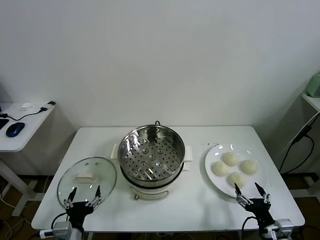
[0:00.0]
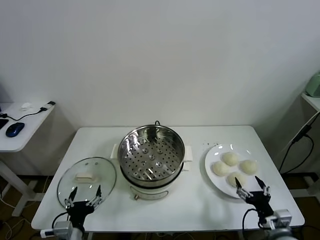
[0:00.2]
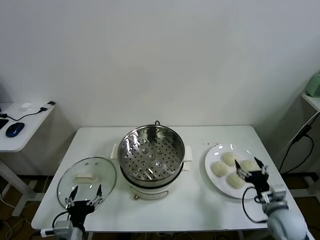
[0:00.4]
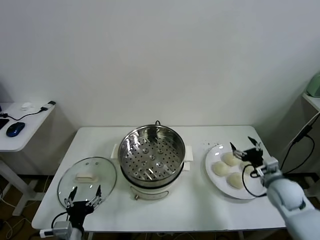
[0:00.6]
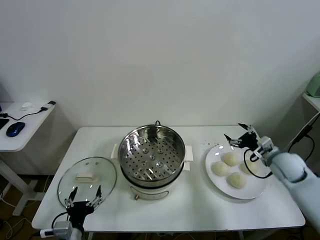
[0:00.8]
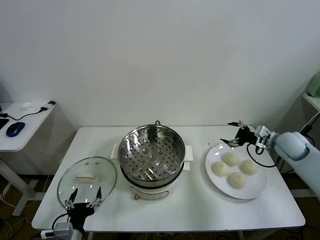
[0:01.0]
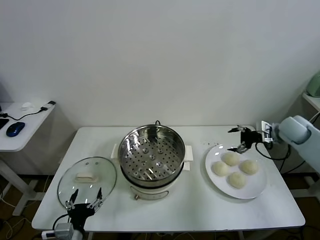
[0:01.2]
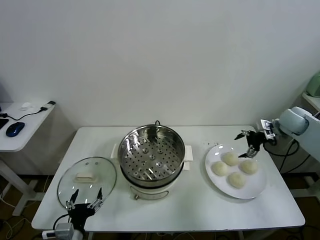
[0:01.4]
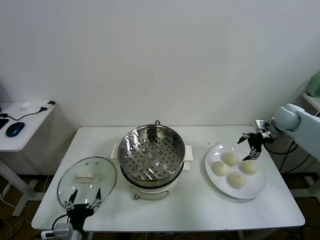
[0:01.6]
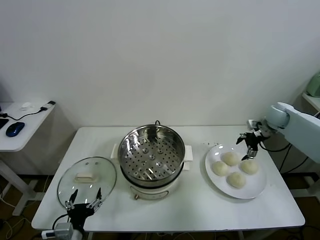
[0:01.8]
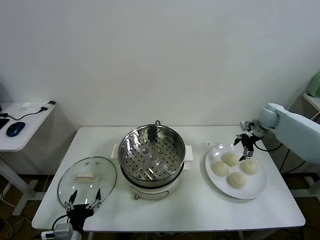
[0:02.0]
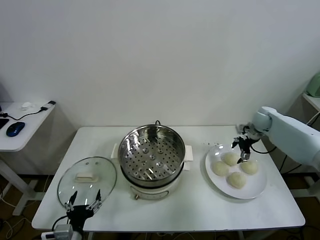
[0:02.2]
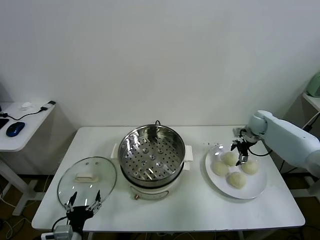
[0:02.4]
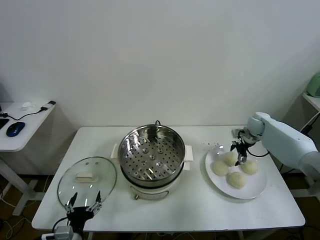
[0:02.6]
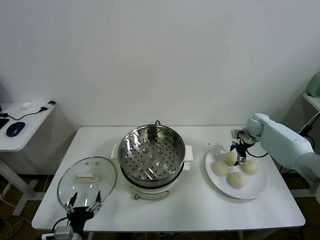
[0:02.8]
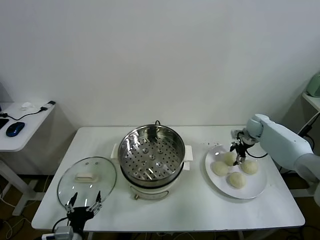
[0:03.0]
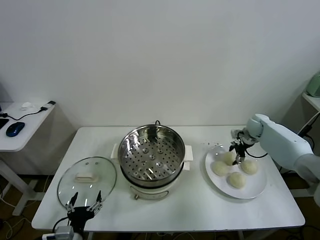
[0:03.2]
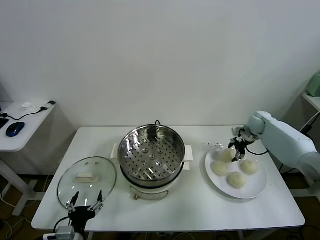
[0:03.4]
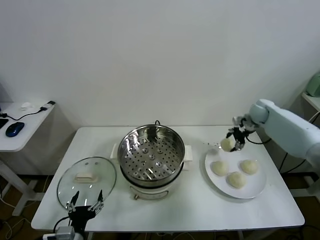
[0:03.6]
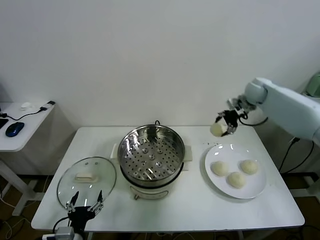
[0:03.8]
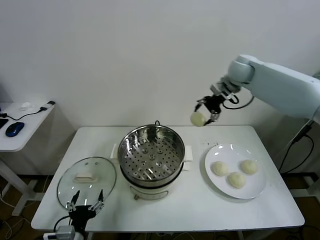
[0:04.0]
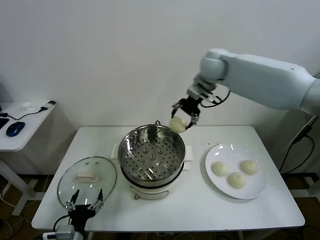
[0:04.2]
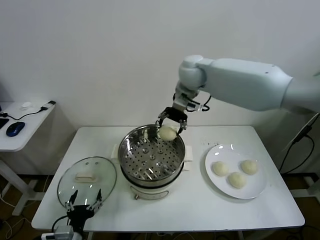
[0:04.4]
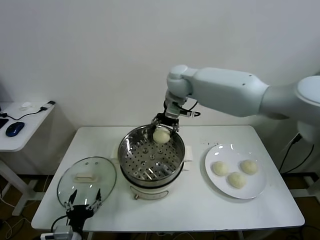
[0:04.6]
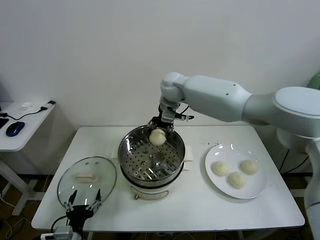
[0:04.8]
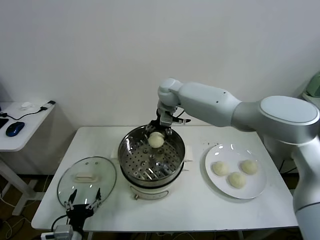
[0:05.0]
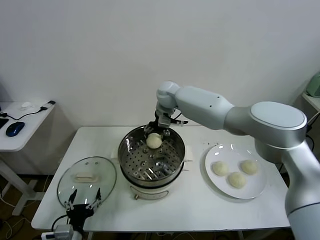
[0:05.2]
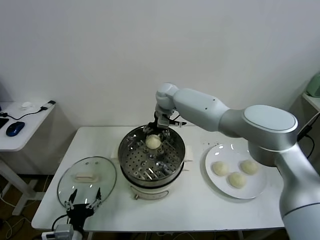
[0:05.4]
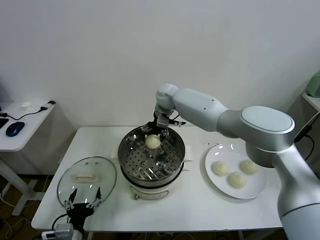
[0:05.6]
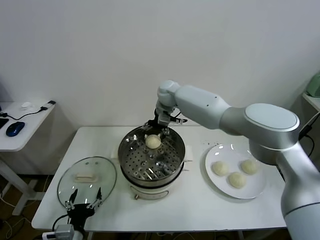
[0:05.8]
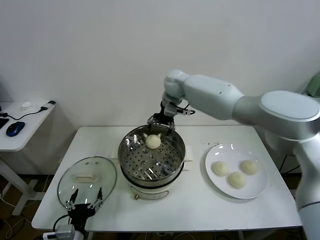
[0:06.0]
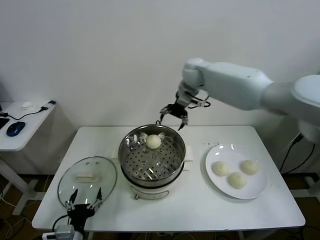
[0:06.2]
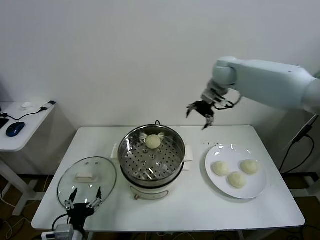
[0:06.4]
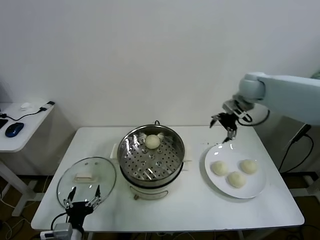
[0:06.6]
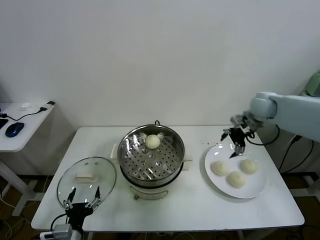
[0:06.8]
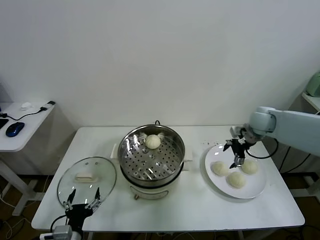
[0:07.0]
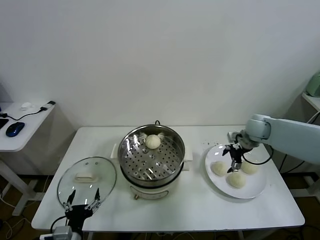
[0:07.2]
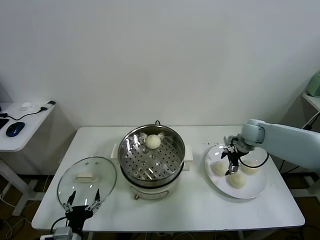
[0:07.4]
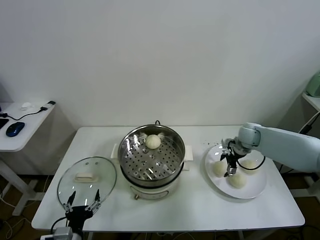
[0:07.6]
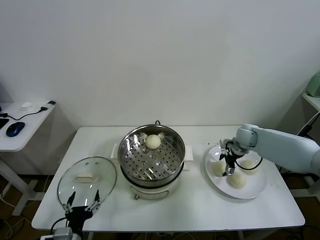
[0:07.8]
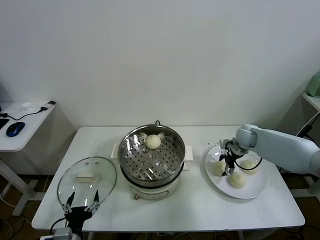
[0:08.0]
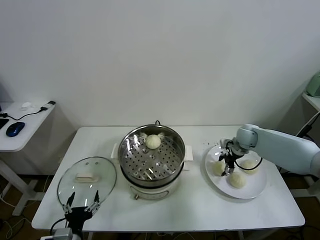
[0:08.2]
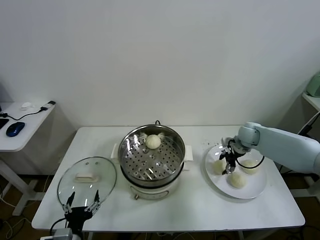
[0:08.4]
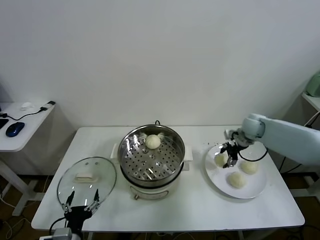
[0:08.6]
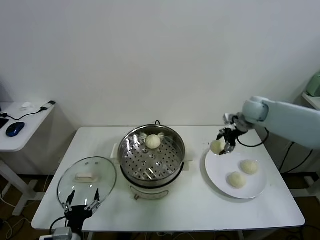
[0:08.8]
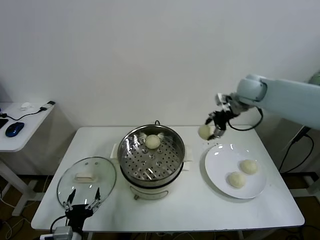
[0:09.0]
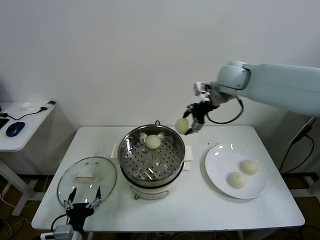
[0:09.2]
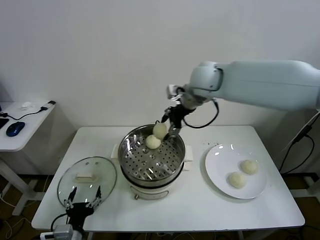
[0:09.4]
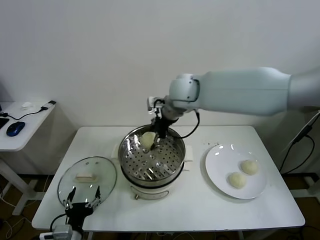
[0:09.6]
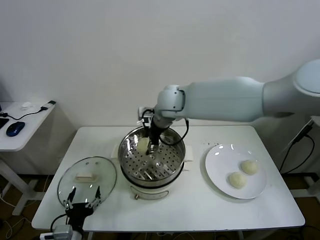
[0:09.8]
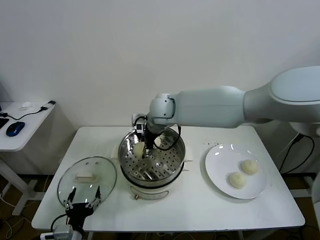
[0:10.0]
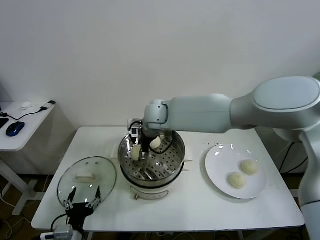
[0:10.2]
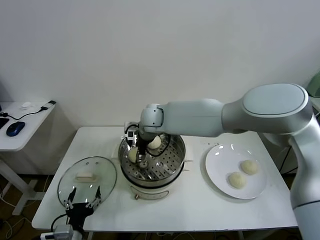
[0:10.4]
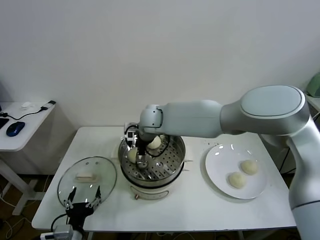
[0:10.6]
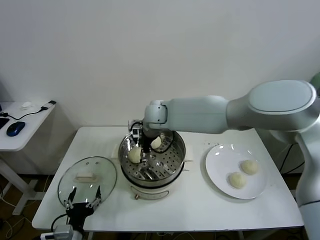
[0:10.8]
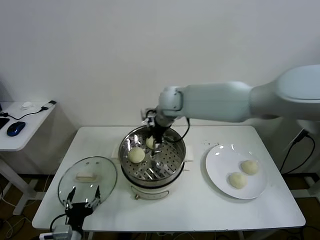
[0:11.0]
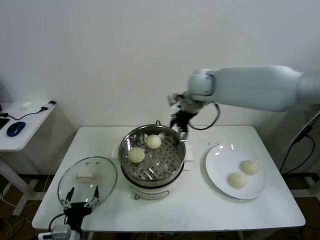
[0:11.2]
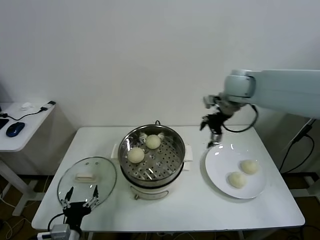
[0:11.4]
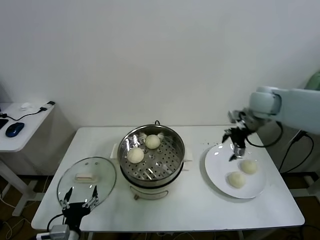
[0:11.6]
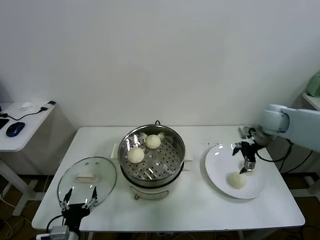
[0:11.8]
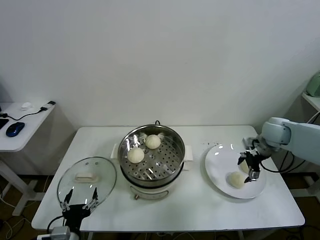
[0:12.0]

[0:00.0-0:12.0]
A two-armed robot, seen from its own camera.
Task of the whole recording: take steamed baozi put them in steamer.
Step, 0:00.0 to 0:03.2: Grasp the baozi in the plate with right gripper.
Step, 0:03.4 to 0:05.6: Place the baozi on the steamer with right gripper.
Step, 0:05.8 to 0:08.0: Grasp the baozi in the plate with right gripper.
Step, 0:08.2 to 0:10.6: Place the baozi on the steamer with right gripper.
0:01.6 to 0:03.0: The right gripper travels downward by about 10 cm, and closes its fingers.
0:03.0 to 0:04.4: The right gripper heads to the left and upward, covering some 40 cm.
0:04.4 to 0:06.0: The right gripper is displaced forward by about 5 cm, travels downward and back again, some 10 cm each way, and opens up.
0:06.0 to 0:07.6: The right gripper shifts roughly 35 cm to the right and downward.
0:07.6 to 0:09.0: The right gripper moves upward, some 25 cm, and closes.
0:09.0 to 0:10.4: The right gripper shifts roughly 30 cm to the left, and opens its fingers.
0:10.4 to 0:12.0: The right gripper travels to the right by roughly 40 cm.

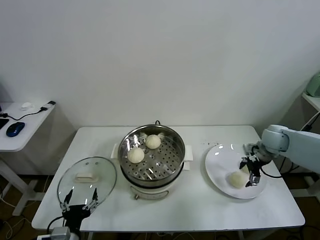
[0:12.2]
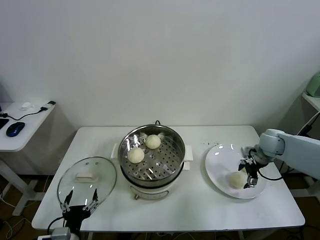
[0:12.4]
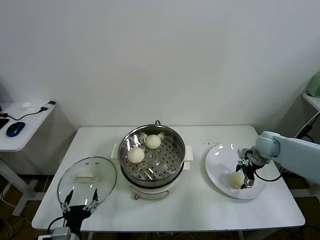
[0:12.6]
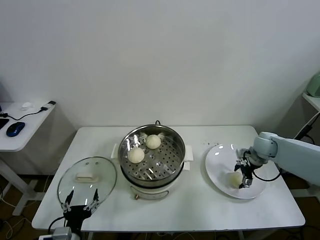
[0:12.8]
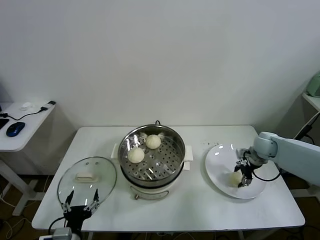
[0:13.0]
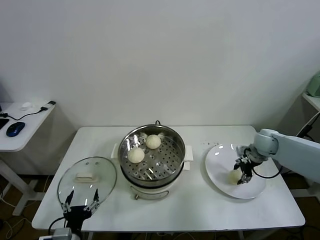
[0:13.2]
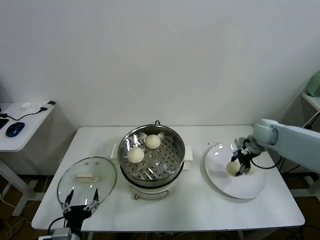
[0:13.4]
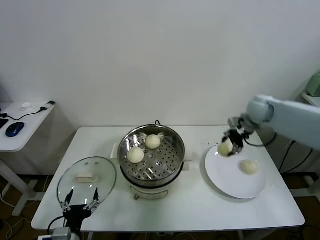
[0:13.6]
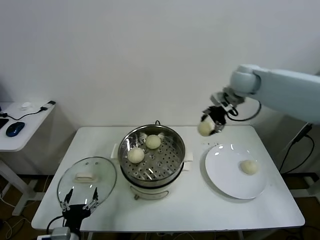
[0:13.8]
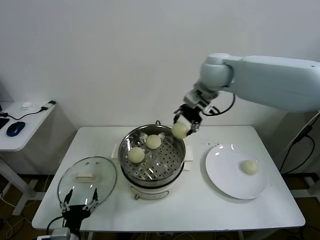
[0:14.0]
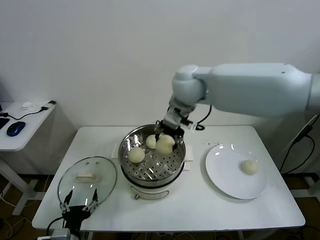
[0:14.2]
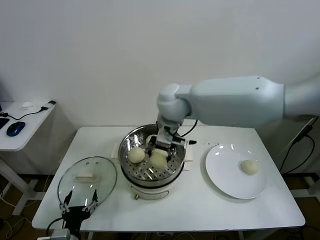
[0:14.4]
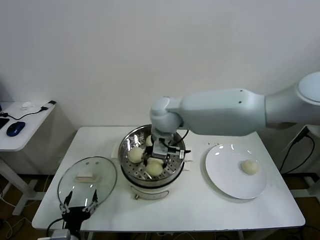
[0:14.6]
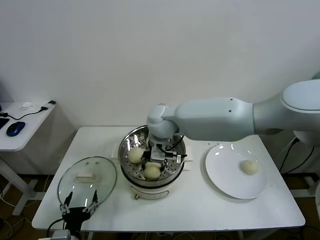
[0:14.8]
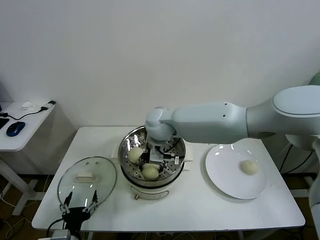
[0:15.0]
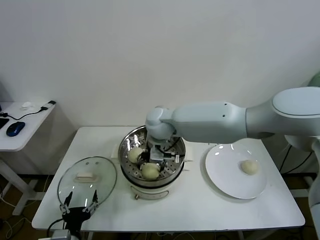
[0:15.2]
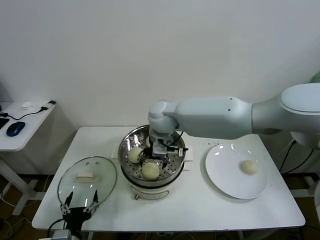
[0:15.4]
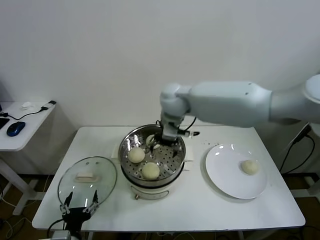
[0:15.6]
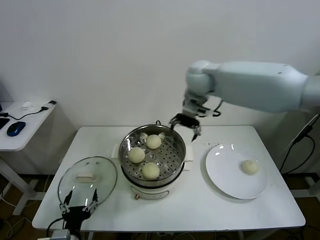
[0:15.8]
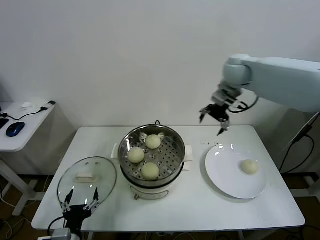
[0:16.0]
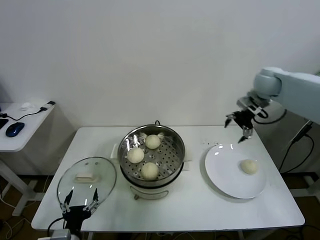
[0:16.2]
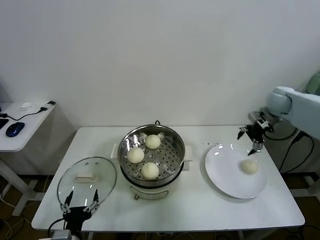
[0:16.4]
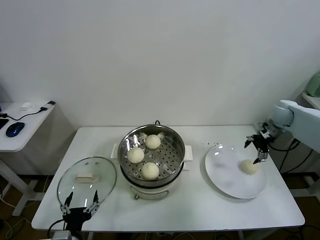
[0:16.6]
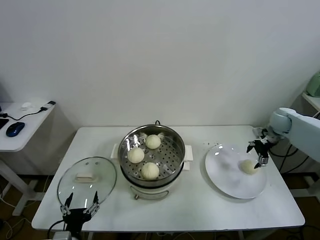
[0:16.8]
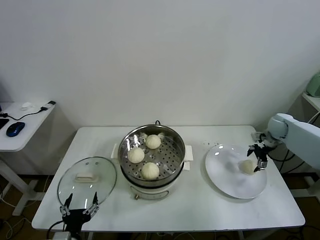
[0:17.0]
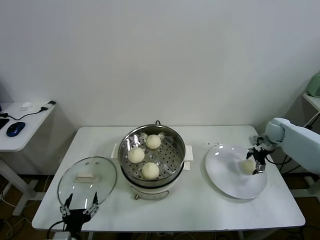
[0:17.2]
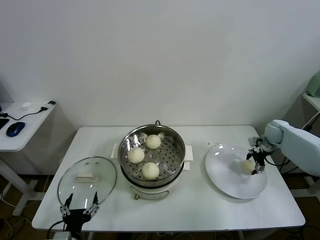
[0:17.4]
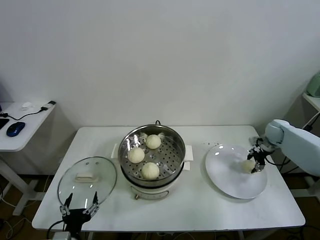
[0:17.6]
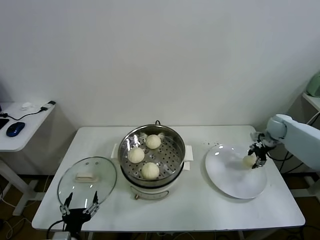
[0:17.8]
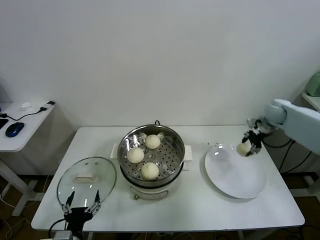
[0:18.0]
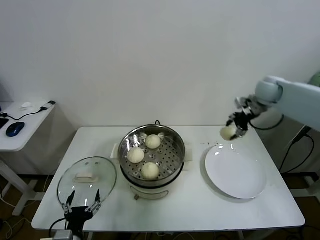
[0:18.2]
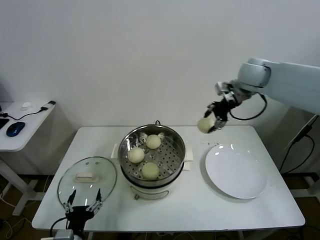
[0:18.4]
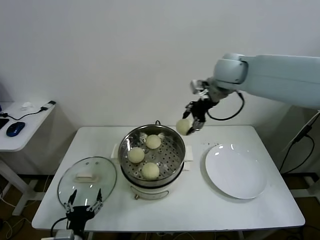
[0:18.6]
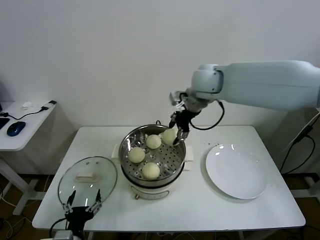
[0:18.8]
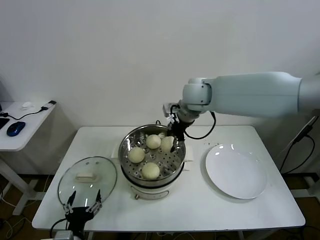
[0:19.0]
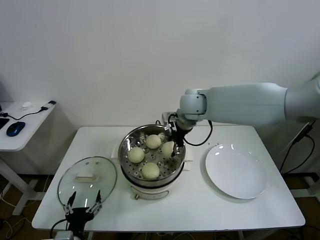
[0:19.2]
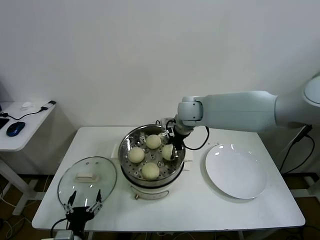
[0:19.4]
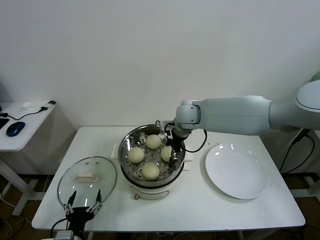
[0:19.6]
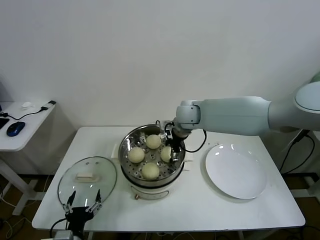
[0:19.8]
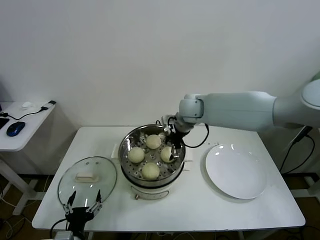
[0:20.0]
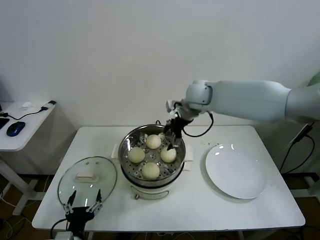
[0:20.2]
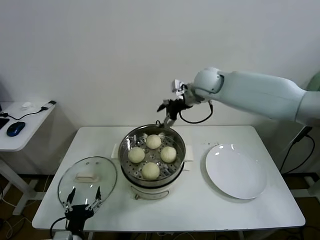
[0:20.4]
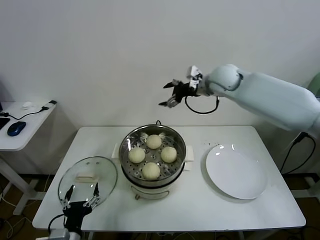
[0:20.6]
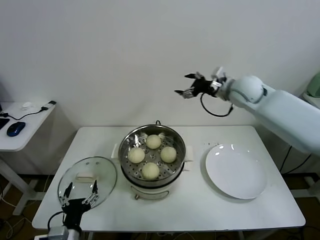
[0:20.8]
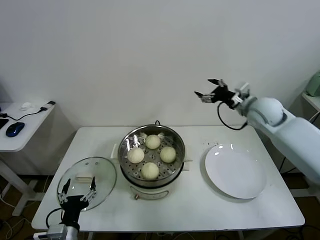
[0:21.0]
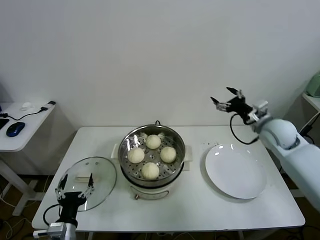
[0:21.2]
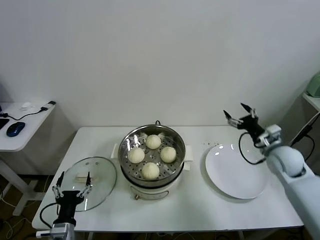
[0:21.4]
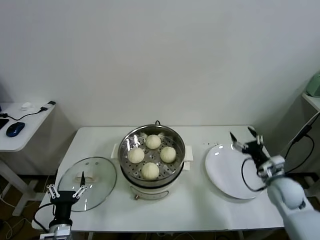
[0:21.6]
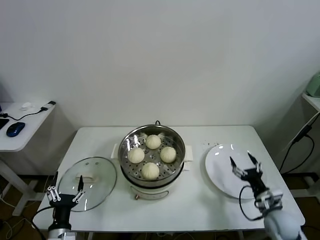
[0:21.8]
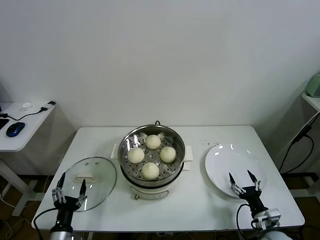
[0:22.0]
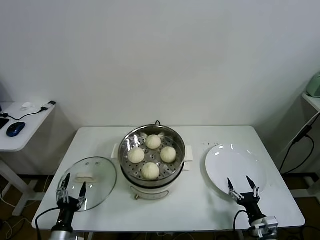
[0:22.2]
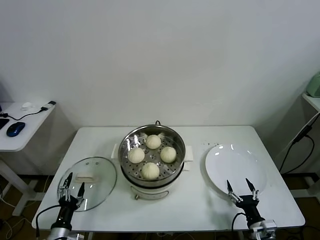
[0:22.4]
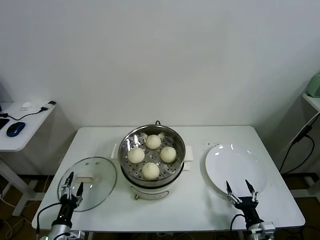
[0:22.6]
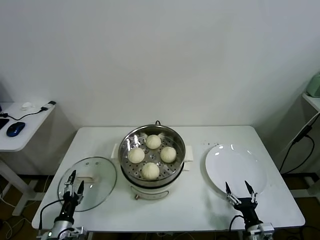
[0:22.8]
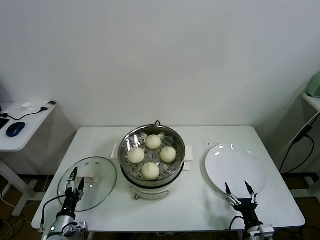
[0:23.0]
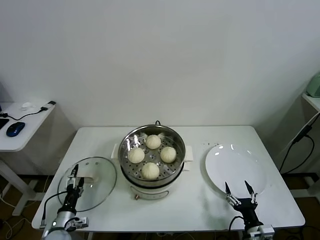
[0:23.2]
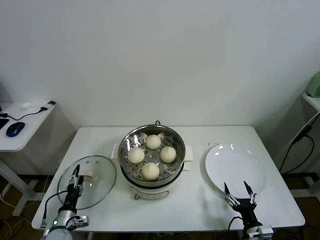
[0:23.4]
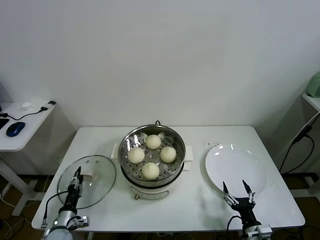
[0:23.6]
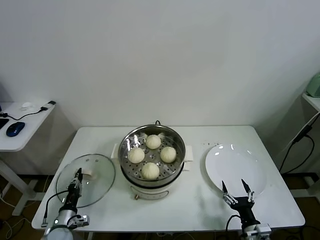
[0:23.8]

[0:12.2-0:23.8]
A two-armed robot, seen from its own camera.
Task of the whole recording: take steamed baozi put them in steamer.
Step, 0:13.2 to 0:15.2: Place the baozi on the steamer with right gripper.
Step, 0:15.6 to 0:17.4: Grasp the baozi in the plate with right gripper.
Step, 0:17.6 to 0:19.8: Place the baozi on the steamer with right gripper.
0:12.2 to 0:13.6: The right gripper travels upward, to the left and forward by about 15 cm, and closes its fingers.
0:13.6 to 0:15.0: The right gripper moves to the left, some 35 cm, and opens.
0:15.0 to 0:16.6: The right gripper is displaced to the right by about 50 cm.
0:16.6 to 0:18.0: The right gripper reaches about 10 cm downward, then returns, and closes up.
0:18.0 to 0:19.4: The right gripper goes about 35 cm to the left.
0:19.4 to 0:21.0: The right gripper travels to the right by approximately 25 cm, and opens.
0:21.0 to 0:22.4: The right gripper is displaced downward and backward by some 50 cm. The left gripper is displaced downward and to the left by some 10 cm.
0:22.4 to 0:23.8: The left gripper is displaced forward by roughly 5 cm, and closes its fingers.
